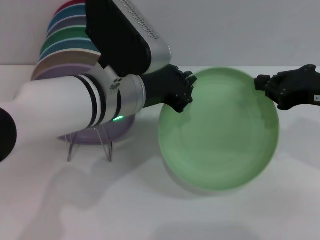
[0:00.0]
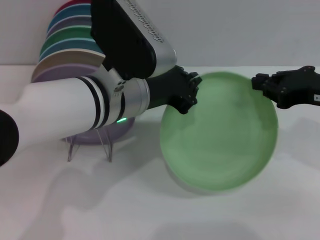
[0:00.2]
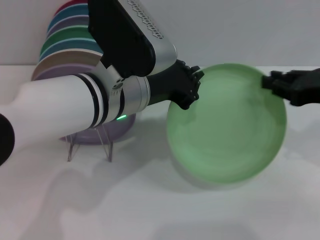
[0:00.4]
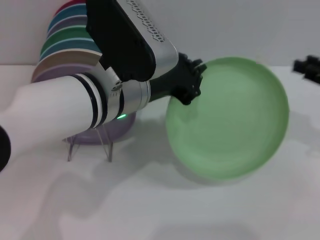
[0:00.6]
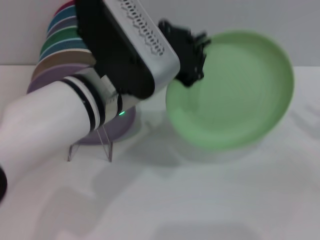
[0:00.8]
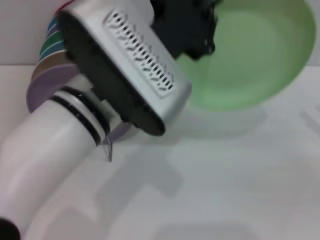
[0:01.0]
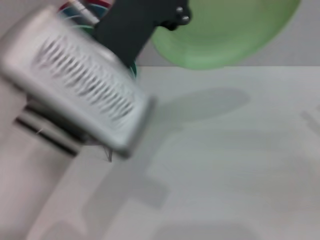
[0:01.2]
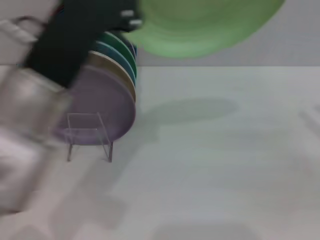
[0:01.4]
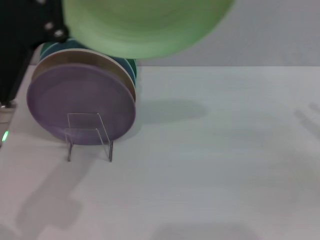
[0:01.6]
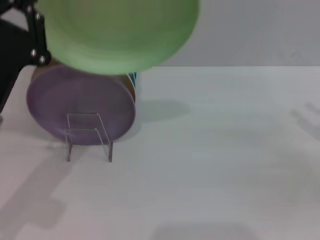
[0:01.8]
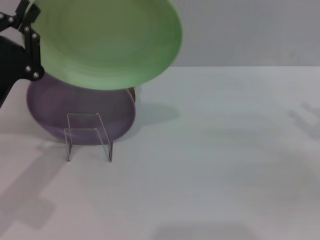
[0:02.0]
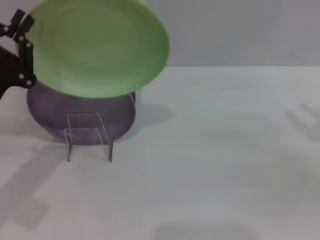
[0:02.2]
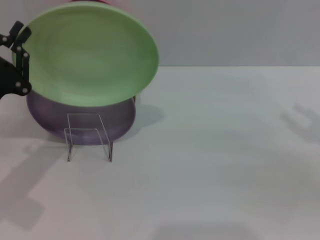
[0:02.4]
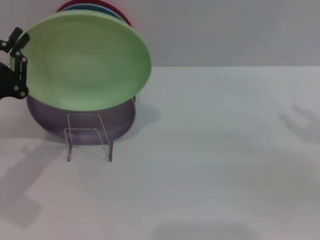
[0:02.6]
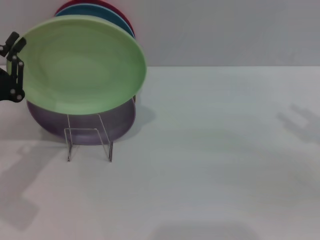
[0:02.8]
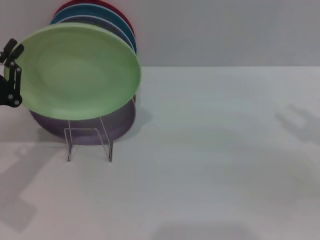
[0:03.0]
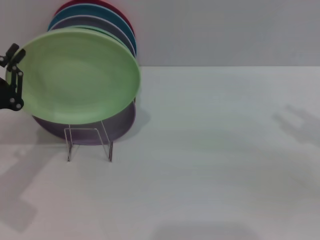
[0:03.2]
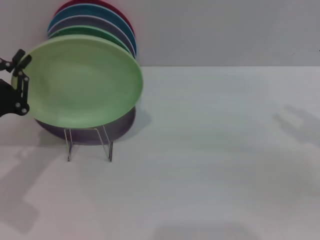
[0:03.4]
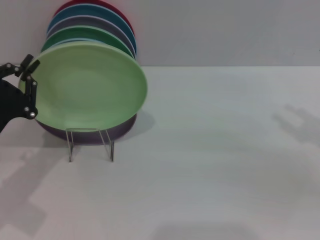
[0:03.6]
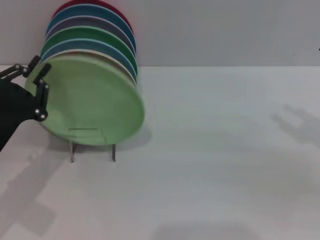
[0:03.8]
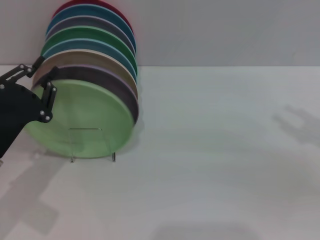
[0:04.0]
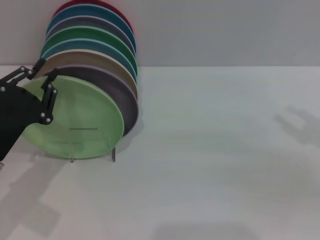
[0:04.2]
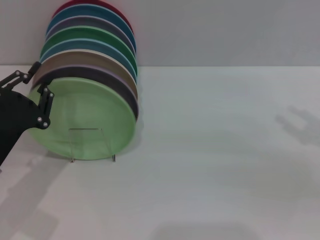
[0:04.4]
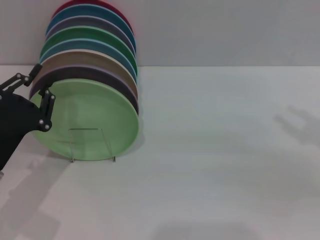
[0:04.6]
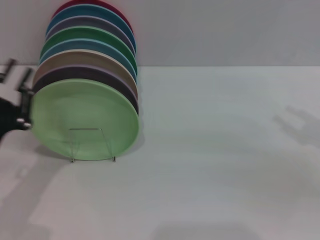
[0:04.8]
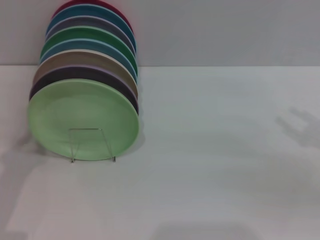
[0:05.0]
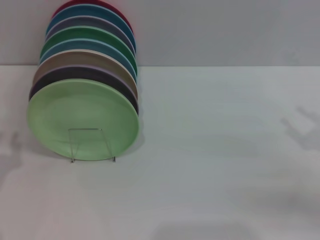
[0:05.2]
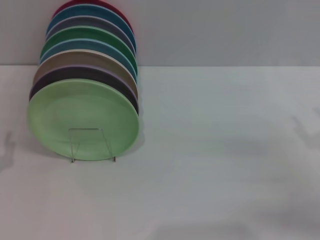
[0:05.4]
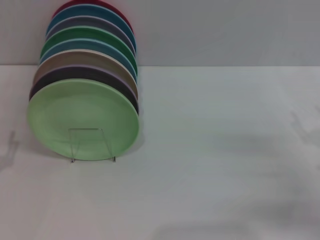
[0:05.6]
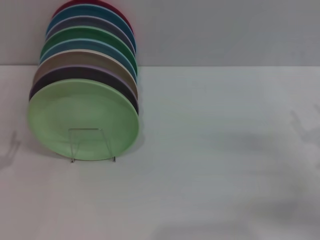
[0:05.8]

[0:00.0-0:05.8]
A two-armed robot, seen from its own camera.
Task of the whole recording: Grip the plate with one hand, pass it to the other, then set it on the shelf.
Step, 0:00.8 to 0:04.6: Place the plate on the shelf with the left gripper.
0:00.0 to 0:01.4: The left gripper travels backward by about 10 cm. Meanwhile the right gripper is displaced to the right by roughly 10 cm, and opens up.
0:01.4 to 0:02.8: The left gripper travels to the left and downward by roughly 20 cm.
0:02.8 to 0:04.4: The grippers move only a little.
0:04.4 to 0:05.8: The left gripper moves to the left, roughly 5 cm, and opens up, while the right gripper travels downward by about 10 cm.
